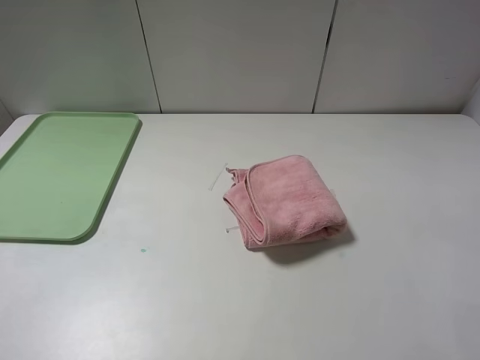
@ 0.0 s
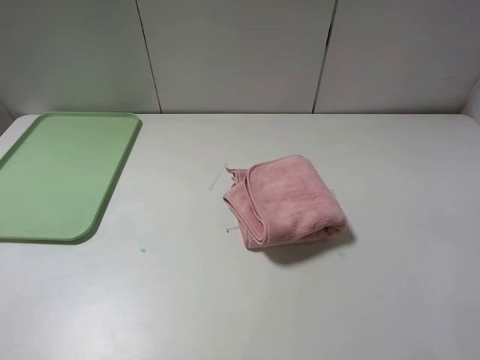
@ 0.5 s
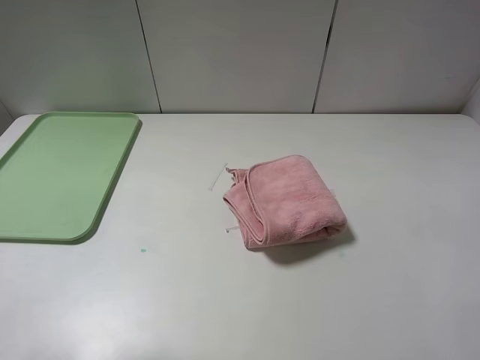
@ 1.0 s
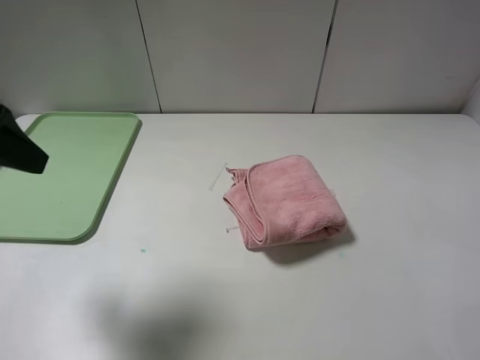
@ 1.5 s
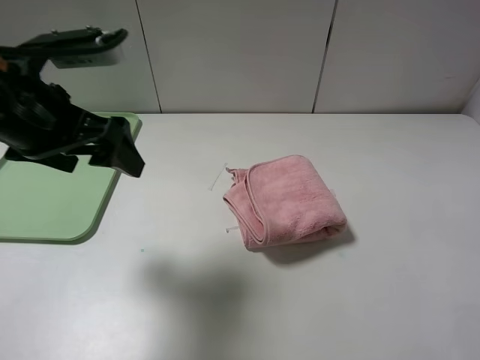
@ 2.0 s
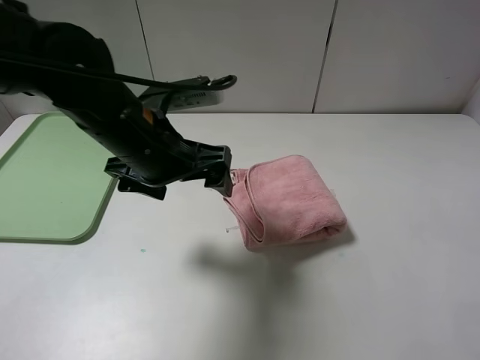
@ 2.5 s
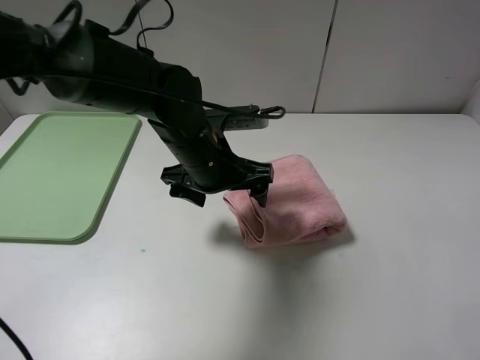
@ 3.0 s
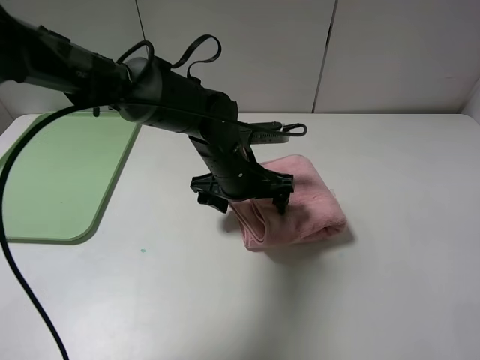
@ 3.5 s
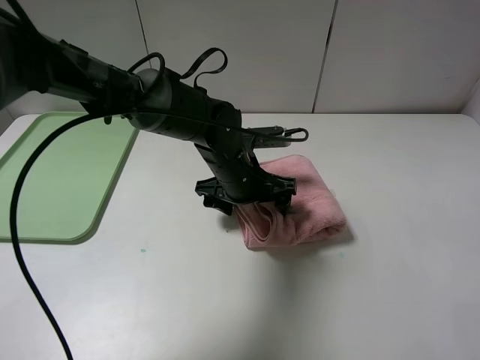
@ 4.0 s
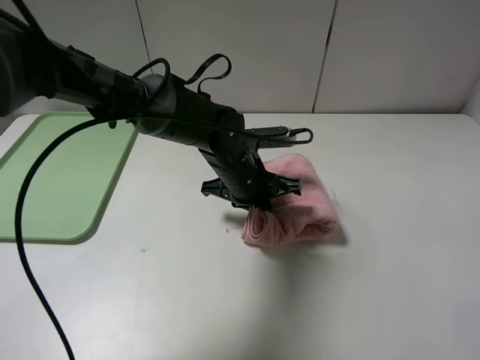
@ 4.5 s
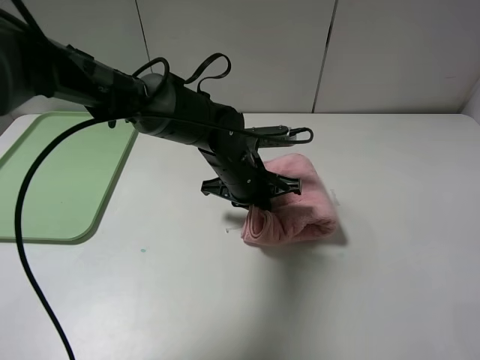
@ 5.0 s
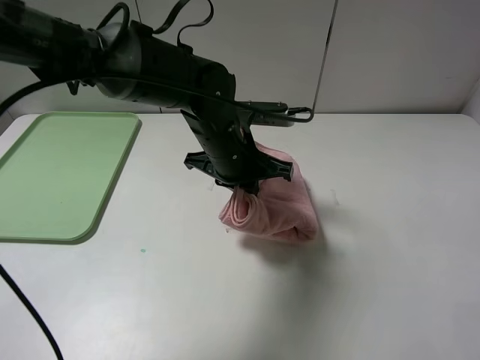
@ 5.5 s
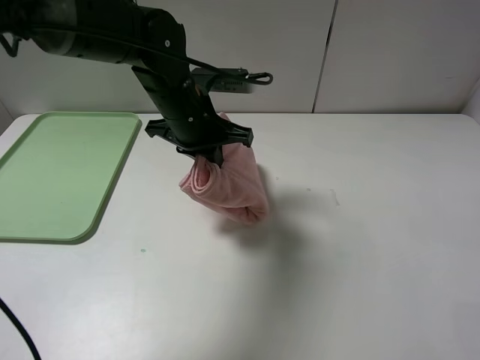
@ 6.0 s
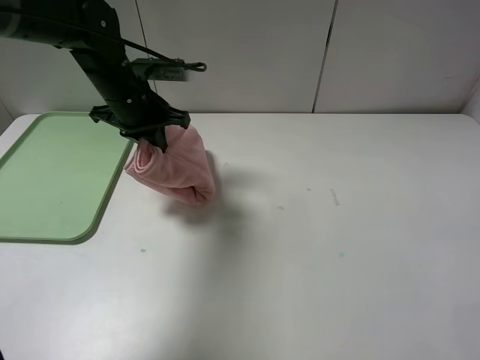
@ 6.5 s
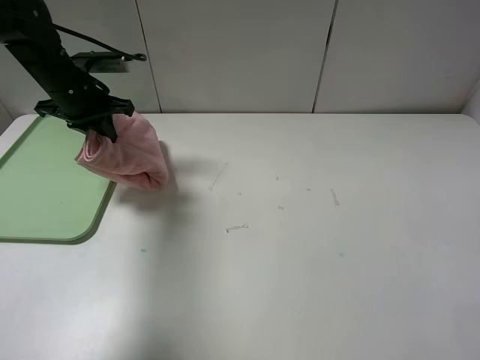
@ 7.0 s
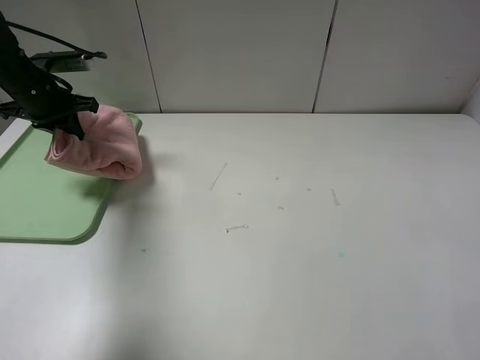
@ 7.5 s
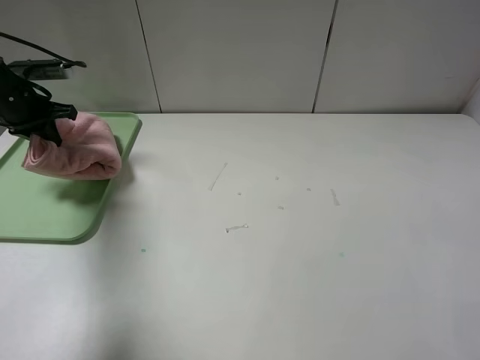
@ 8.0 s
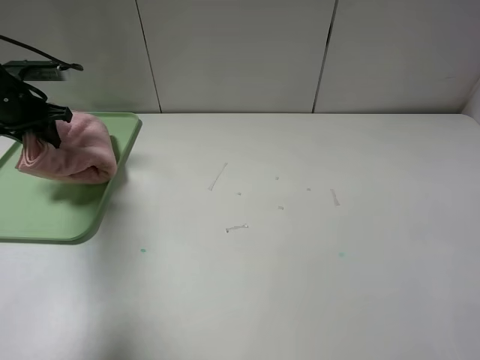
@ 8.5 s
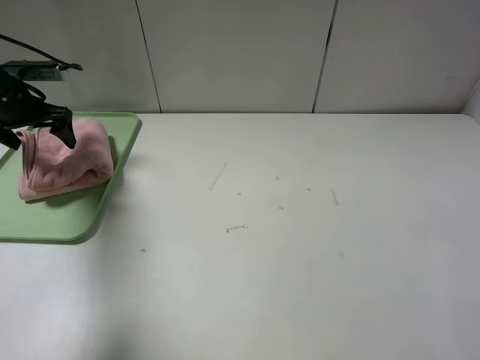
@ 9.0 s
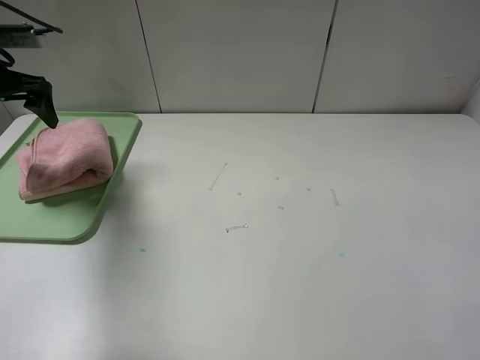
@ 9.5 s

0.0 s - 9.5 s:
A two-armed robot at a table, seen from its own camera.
Step, 0.0 s - 9.0 s: Place the folded pink towel on the tray with the left gripper.
0.0 s - 2.0 s: The left gripper shifts some 25 cm forward and to the right.
2.0 s - 4.0 s: The left gripper travels to the right, downward and forward by roughly 25 cm.
4.0 s - 5.5 s: The left gripper heads upward, covering approximately 5 cm, and closes.
5.5 s - 7.5 s: The left gripper heads to the left, covering some 30 cm.
7.5 s - 9.5 s: The left gripper goes about 5 cm upward, and opens its fingers.

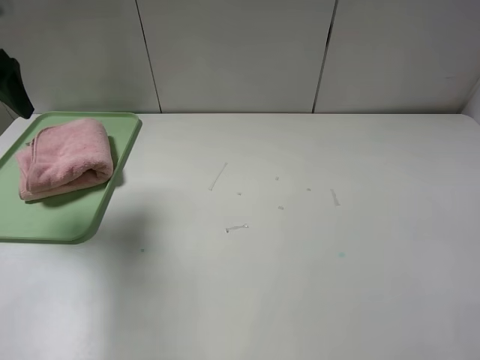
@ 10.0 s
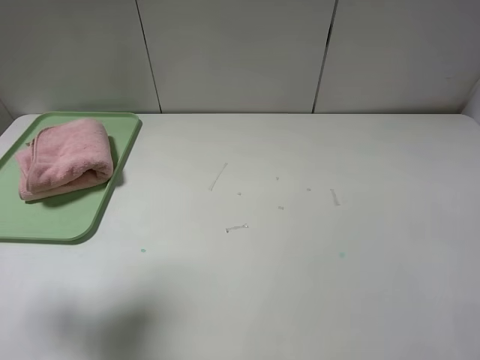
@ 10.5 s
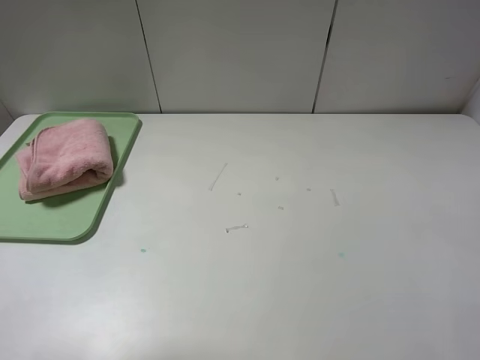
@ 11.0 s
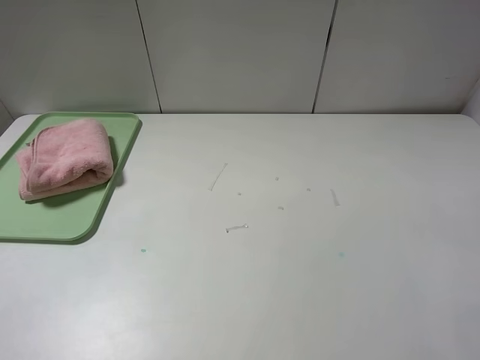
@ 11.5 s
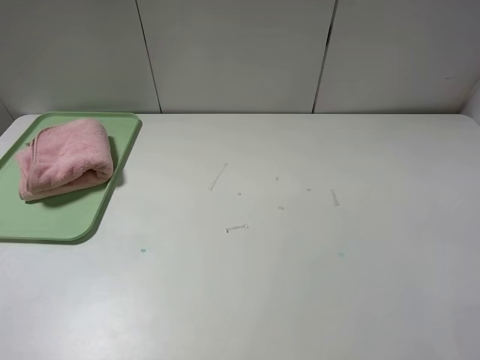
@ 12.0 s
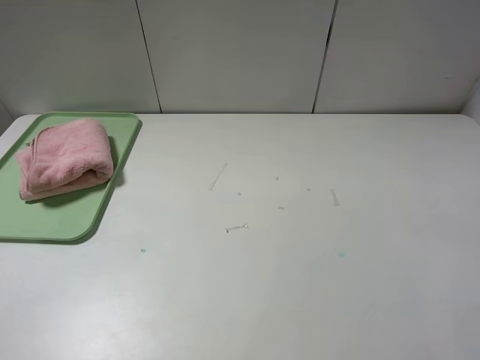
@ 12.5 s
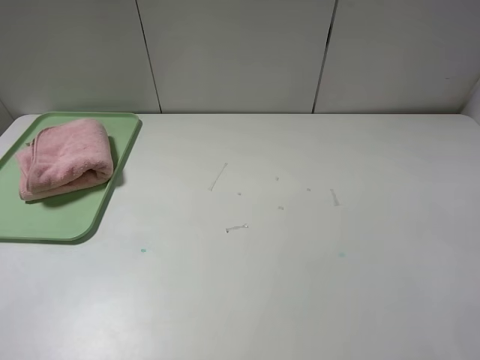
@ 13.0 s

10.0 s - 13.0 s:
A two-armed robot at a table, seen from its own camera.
10.0 s - 11.5 s: The left gripper shifts some 30 cm backward.
